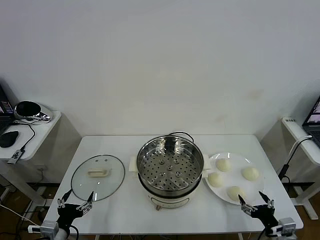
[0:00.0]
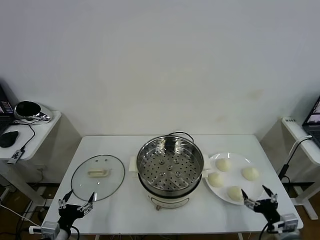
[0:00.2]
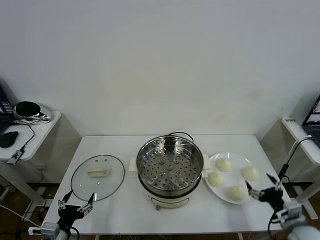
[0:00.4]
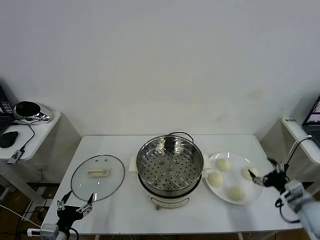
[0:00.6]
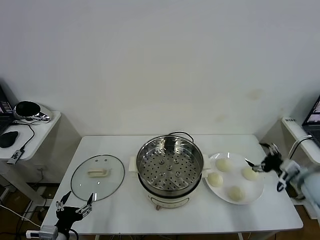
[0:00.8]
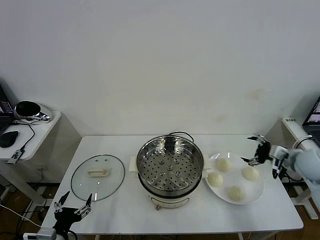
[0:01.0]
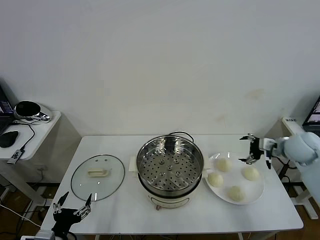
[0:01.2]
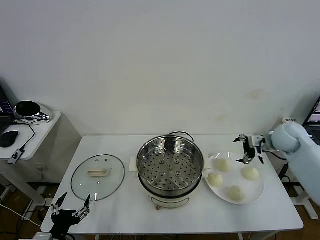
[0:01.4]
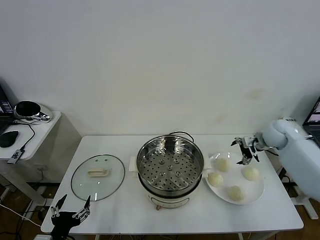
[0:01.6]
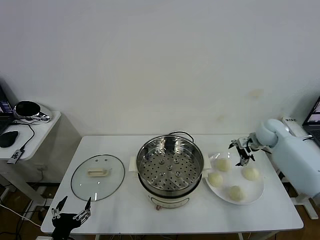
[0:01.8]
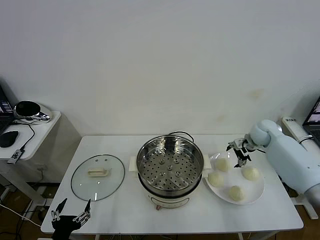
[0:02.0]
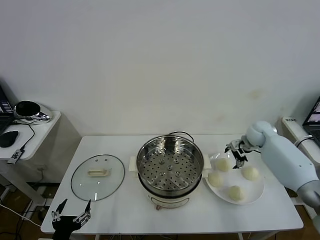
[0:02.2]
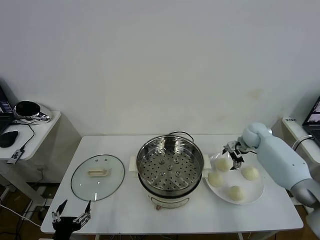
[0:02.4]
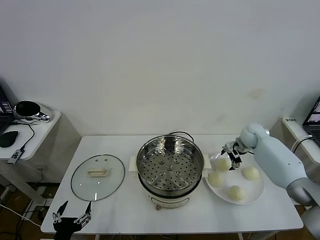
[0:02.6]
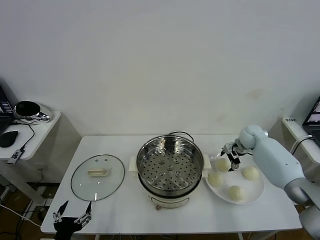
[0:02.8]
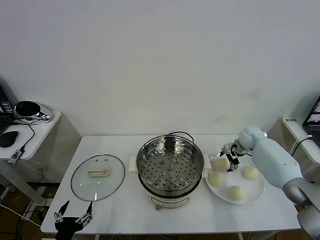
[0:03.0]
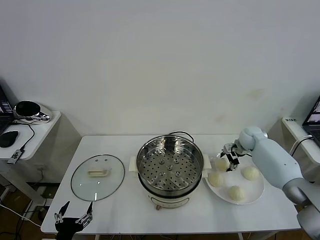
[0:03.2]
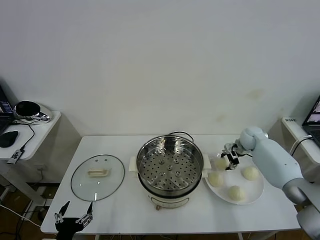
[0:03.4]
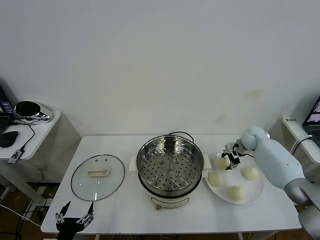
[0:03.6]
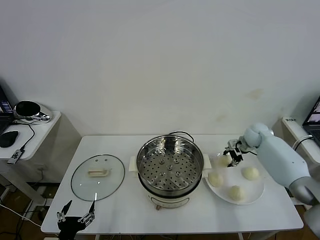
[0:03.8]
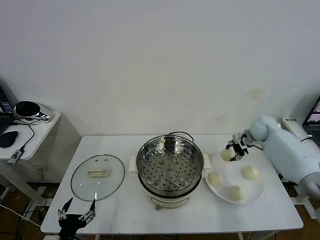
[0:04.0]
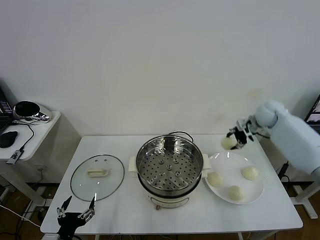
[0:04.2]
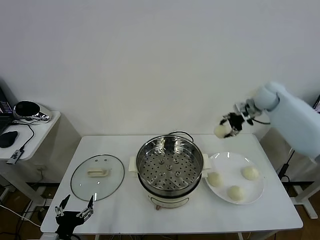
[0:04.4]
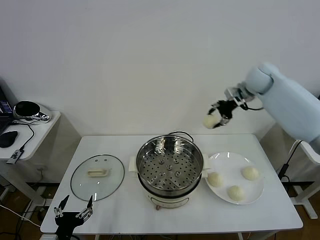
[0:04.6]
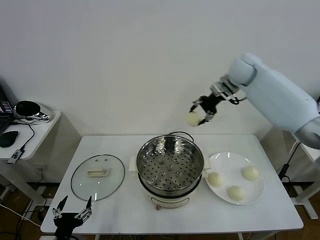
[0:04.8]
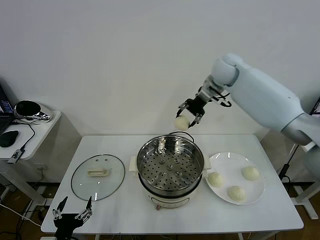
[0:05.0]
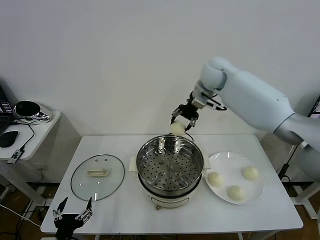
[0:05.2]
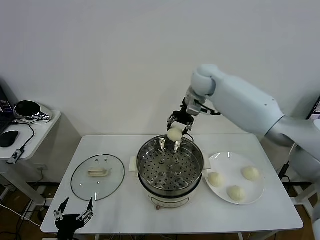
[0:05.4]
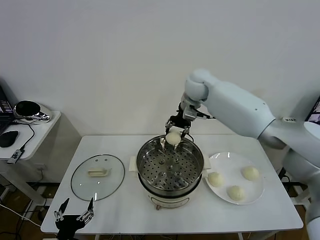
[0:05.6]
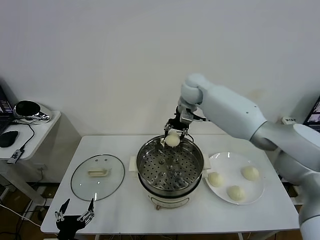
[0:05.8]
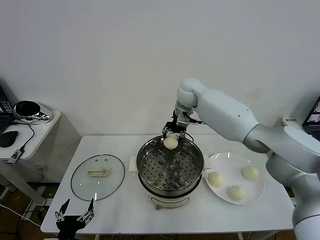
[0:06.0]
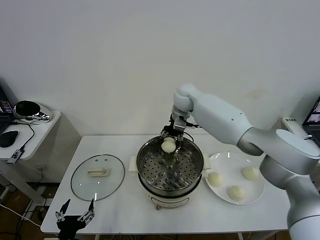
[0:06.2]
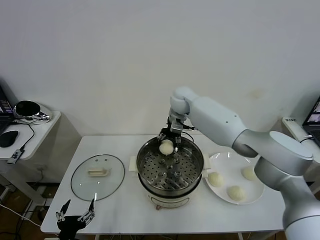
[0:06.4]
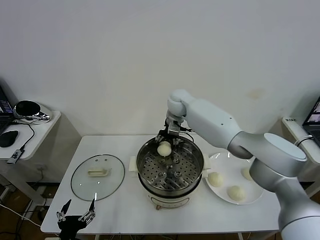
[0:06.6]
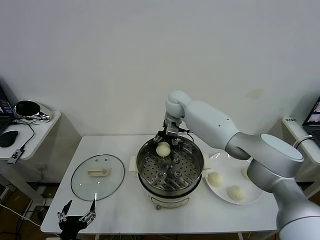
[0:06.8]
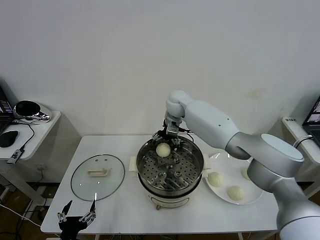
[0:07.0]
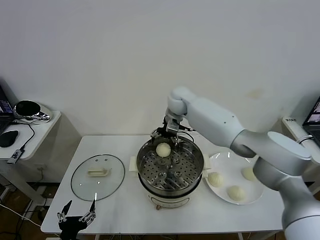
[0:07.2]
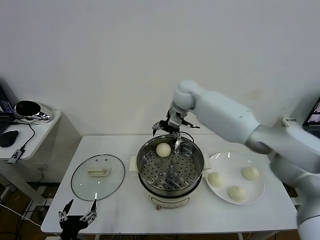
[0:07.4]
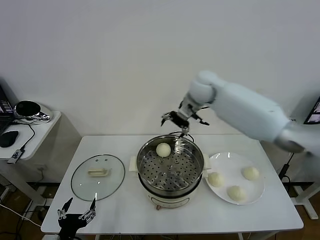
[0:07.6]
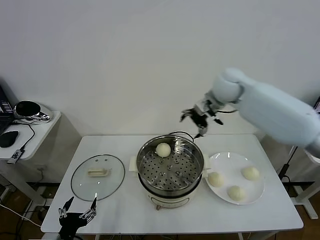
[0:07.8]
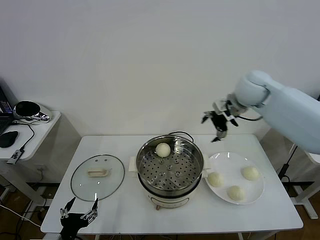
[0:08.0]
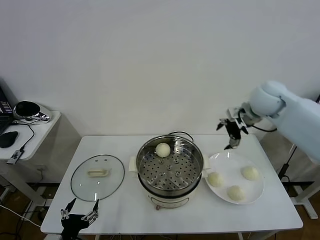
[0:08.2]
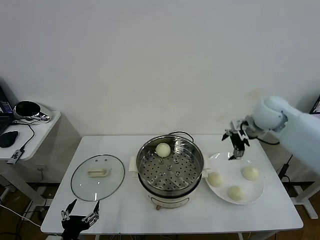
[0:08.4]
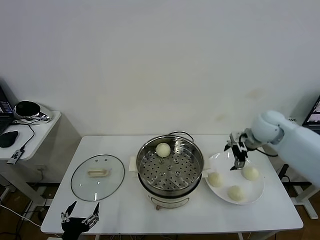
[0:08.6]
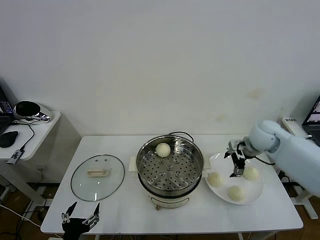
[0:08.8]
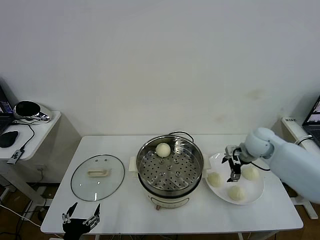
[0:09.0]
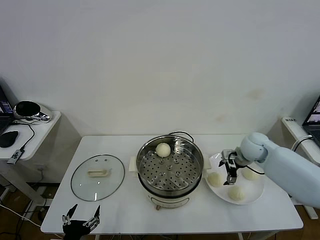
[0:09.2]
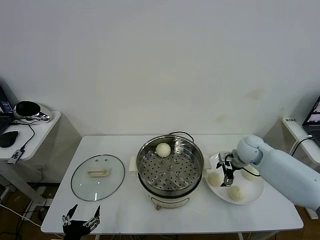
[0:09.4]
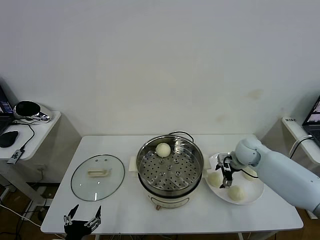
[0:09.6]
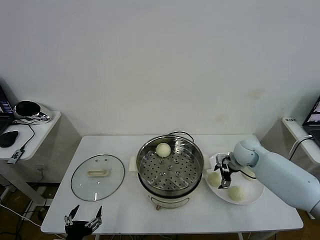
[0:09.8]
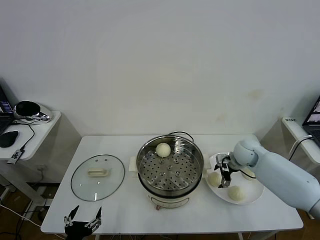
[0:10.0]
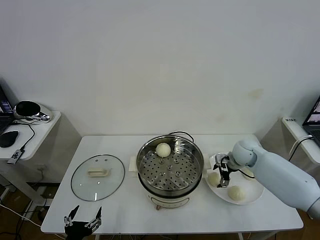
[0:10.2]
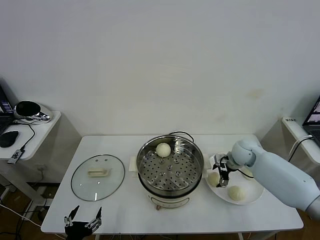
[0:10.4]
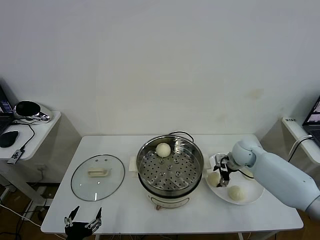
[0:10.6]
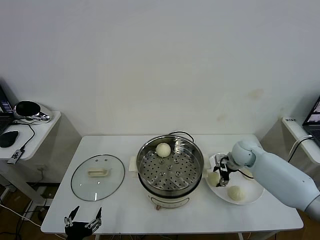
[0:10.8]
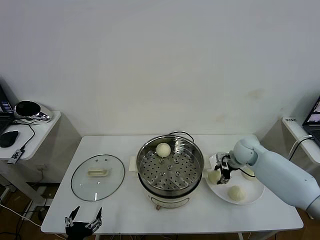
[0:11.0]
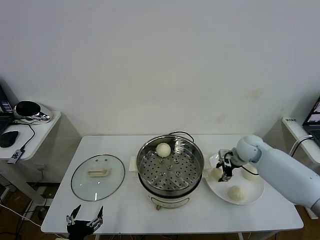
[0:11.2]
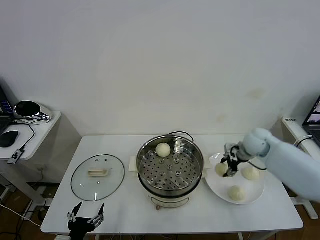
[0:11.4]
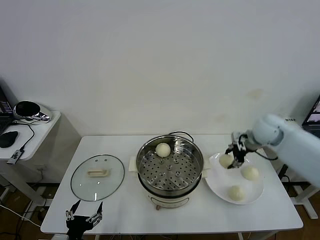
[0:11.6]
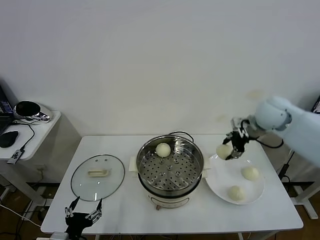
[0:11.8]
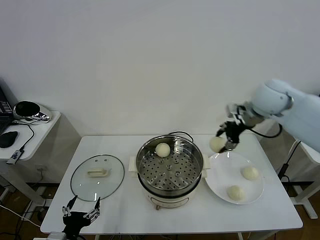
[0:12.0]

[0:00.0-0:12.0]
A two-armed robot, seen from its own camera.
Task of the whole recording: take steamed baozi put them in steamer then cover it.
Step, 0:00.0 to 0:03.4: Grasp the baozi in the plate with right gripper.
Step, 0:03.6 to 0:07.2: Place the baozi on the steamer with right gripper.
Step, 0:07.4 to 0:10.8: Grasp the baozi in the plate with right gripper.
0:01.6 to 0:03.0: The right gripper heads downward and forward, covering about 10 cm.
0:03.0 to 0:04.4: The right gripper is displaced upward by roughly 25 cm, and closes up.
0:04.4 to 0:06.0: The right gripper shifts about 25 cm to the left.
0:06.0 to 0:07.6: The right gripper is displaced to the right, upward and backward by approximately 10 cm, and opens up.
0:07.6 to 0:09.0: The right gripper moves downward, to the right and backward, some 25 cm.
0:09.0 to 0:10.4: The right gripper moves downward, some 5 cm.
0:10.4 to 0:12.0: The right gripper goes about 25 cm upward, and closes its fingers.

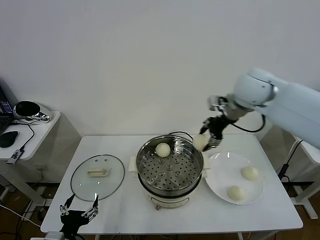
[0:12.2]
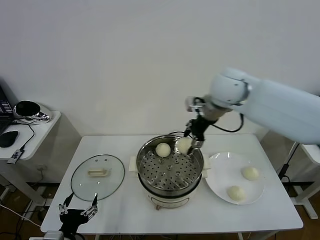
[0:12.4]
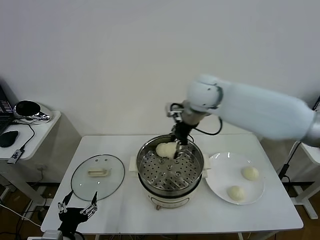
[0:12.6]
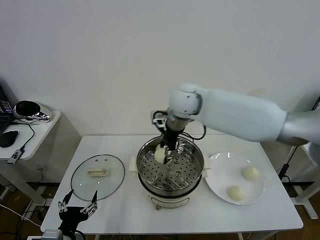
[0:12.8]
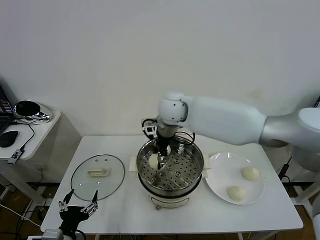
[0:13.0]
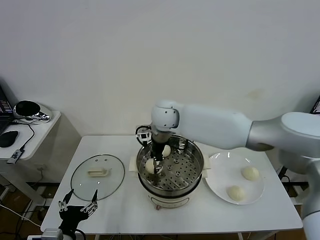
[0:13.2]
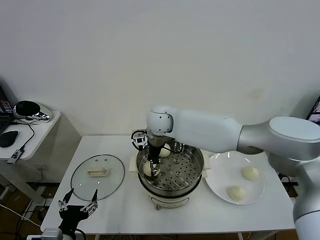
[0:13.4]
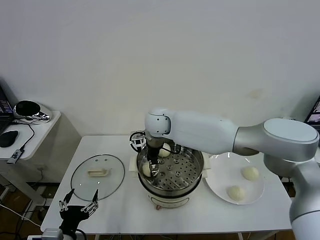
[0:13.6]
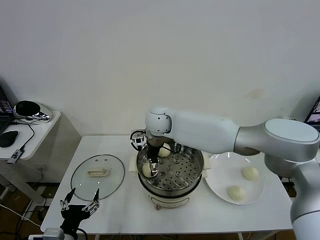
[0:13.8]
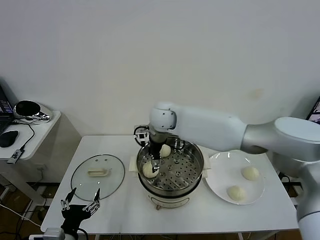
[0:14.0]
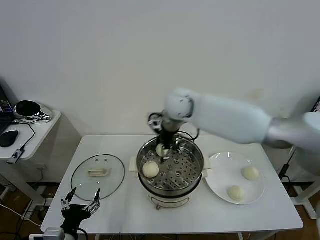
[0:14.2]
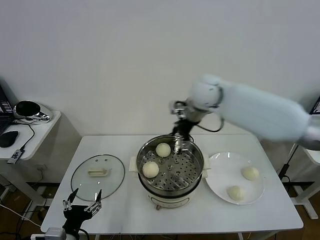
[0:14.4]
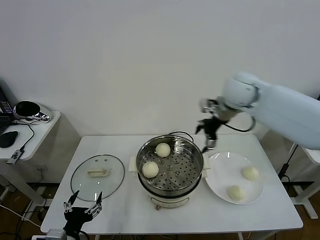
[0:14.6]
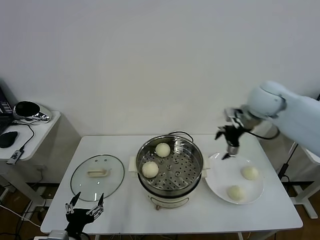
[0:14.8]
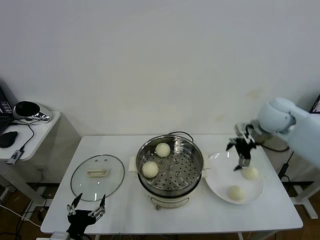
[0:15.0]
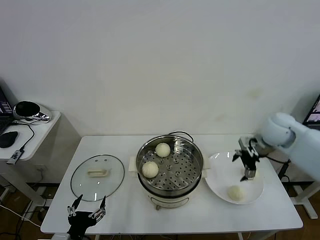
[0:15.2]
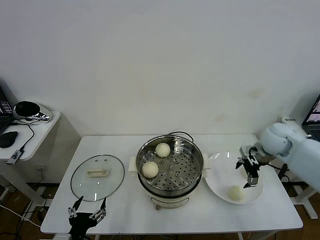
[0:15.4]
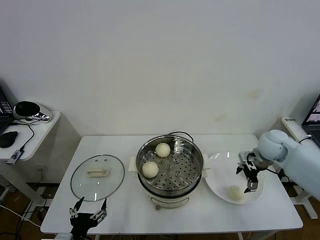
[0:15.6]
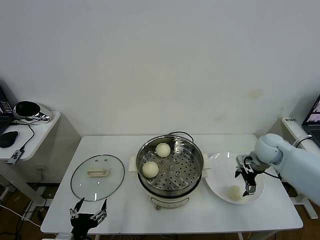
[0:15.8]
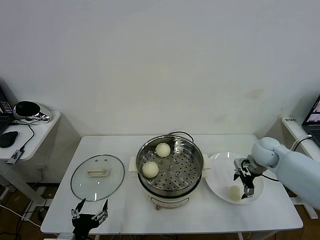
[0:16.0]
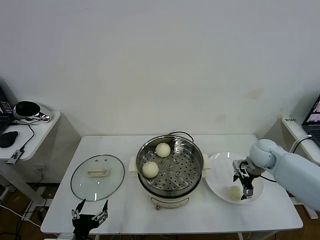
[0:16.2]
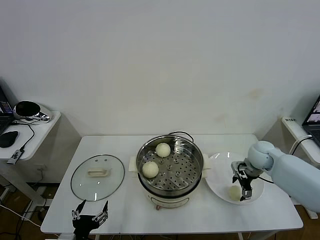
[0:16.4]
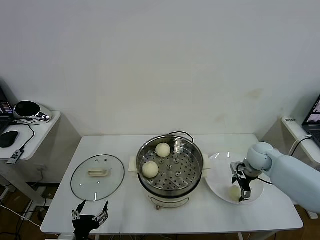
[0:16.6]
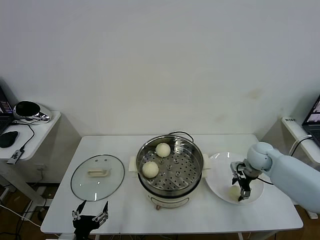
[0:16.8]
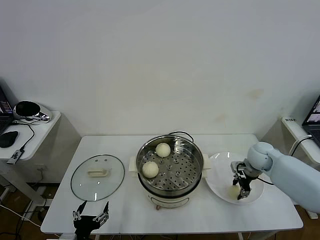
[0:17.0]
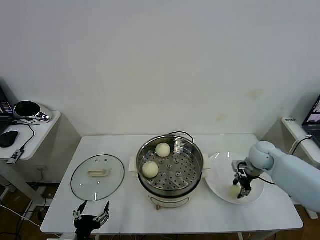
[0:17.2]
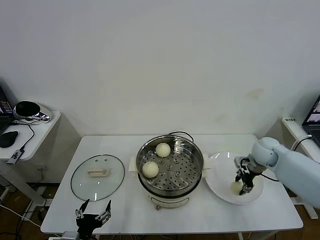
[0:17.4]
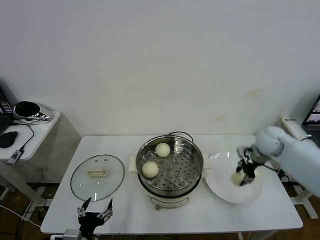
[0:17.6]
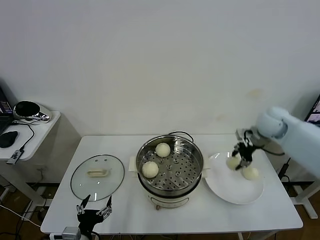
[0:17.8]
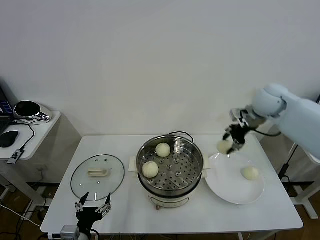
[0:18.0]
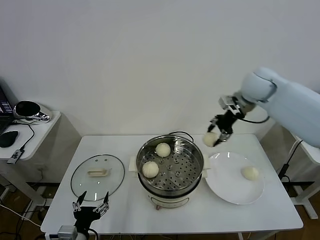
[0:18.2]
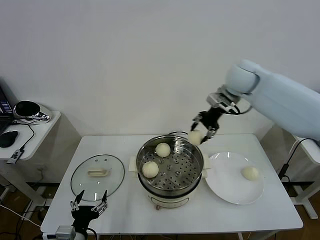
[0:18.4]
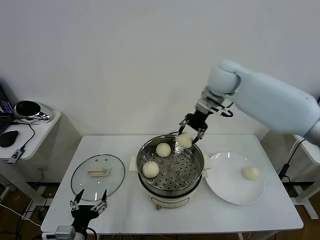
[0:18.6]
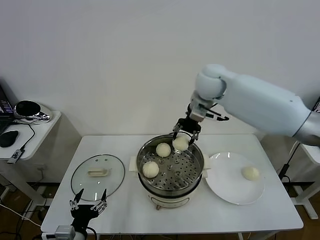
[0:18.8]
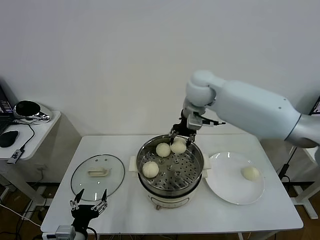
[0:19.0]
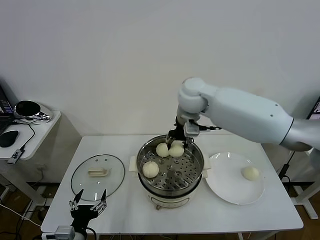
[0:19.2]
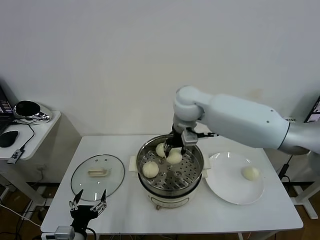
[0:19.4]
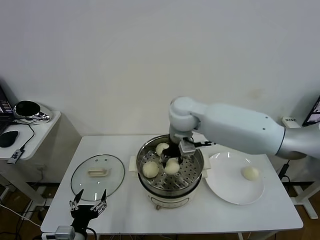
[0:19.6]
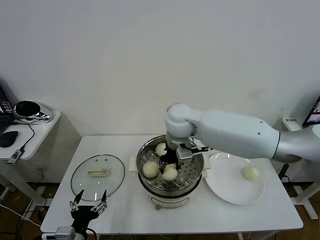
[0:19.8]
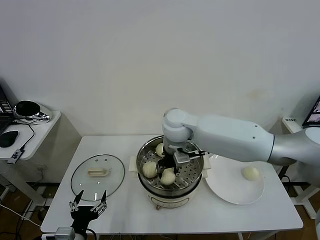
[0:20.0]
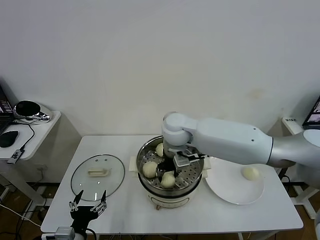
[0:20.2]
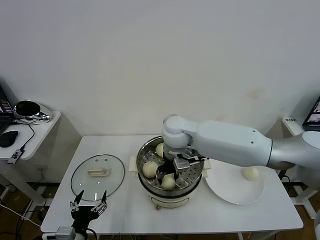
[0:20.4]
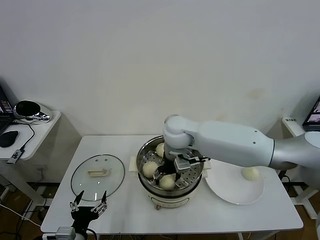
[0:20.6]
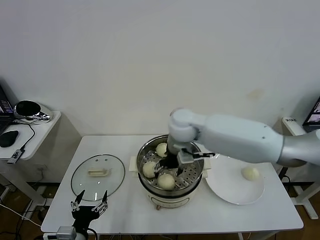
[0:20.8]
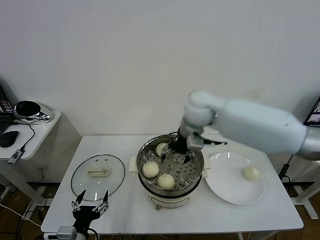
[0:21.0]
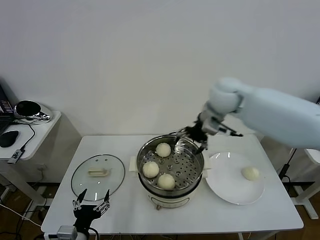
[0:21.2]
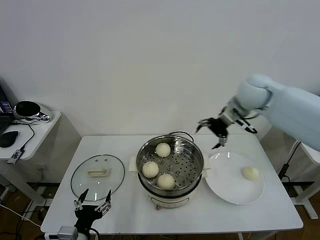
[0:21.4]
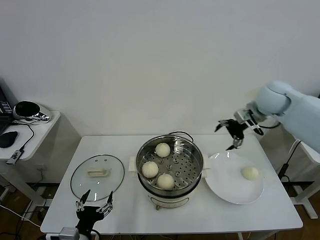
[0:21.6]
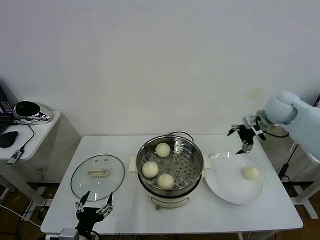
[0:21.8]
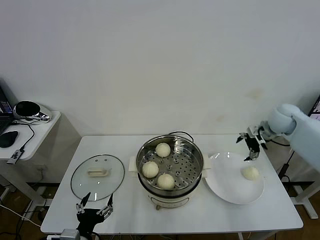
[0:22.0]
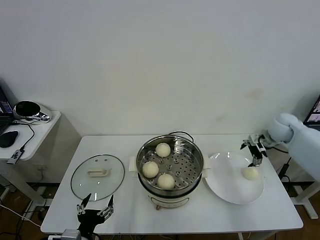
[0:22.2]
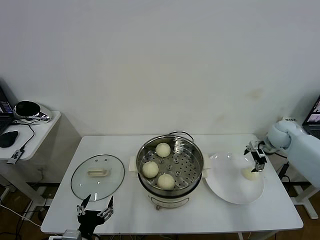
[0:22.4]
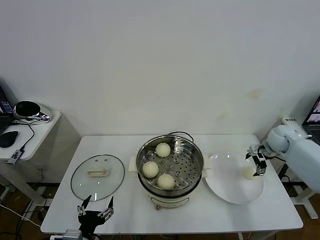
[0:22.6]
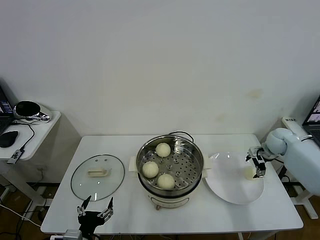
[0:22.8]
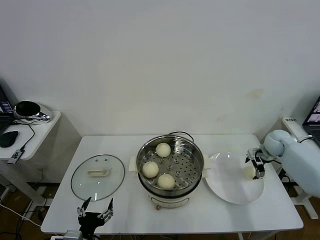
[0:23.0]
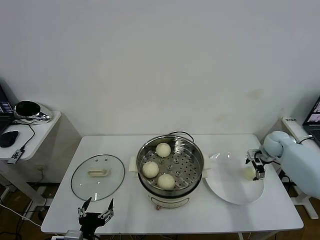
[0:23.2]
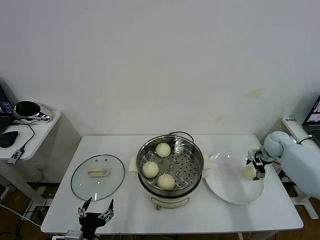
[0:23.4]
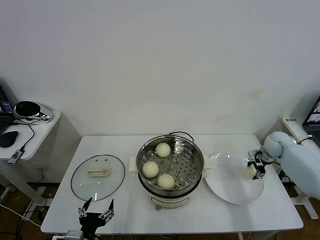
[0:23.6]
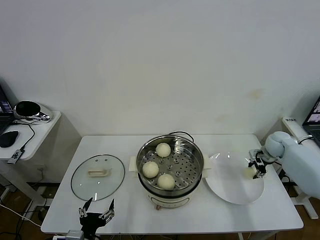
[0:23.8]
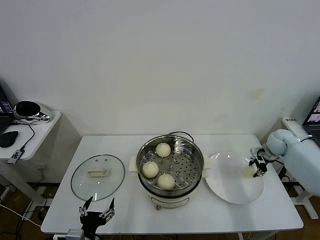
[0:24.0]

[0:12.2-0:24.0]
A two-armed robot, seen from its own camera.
Task of the whole recording: take steamed baozi put them in steamer then cover it.
Step, 0:12.2 to 0:14.0: Place the baozi on the steamer with right gripper.
Step, 0:14.2 to 0:17.2: Grasp the baozi in the plate with right gripper.
Step, 0:17.4 to 0:20.6: Place the baozi on the steamer with right gripper.
Step, 0:21.0 to 0:23.8: Grasp the baozi in the plate with right gripper.
0:12.2 to 0:13.6: The right gripper is displaced to the left and downward by roughly 25 cm.
0:13.6 to 0:15.2: The right gripper moves to the right, about 35 cm, and opens its fingers.
0:15.2 to 0:16.6: The right gripper is displaced downward by about 15 cm.
0:16.6 to 0:18.2: The right gripper shifts some 25 cm upward, and closes.
0:18.2 to 0:19.6: The right gripper is displaced to the left by approximately 20 cm.
0:19.6 to 0:21.0: The right gripper is displaced to the right by some 5 cm, and opens.
0:21.0 to 0:22.6: The right gripper heads to the right and downward, covering some 35 cm.
0:22.6 to 0:24.0: The right gripper closes up.
